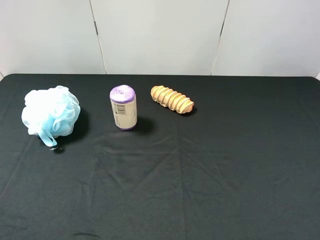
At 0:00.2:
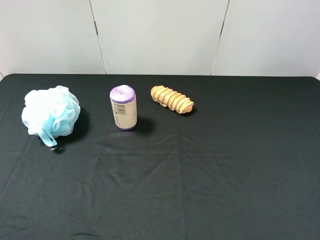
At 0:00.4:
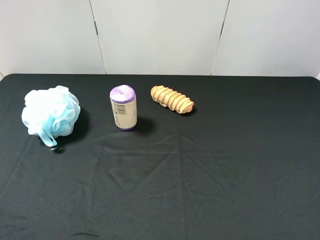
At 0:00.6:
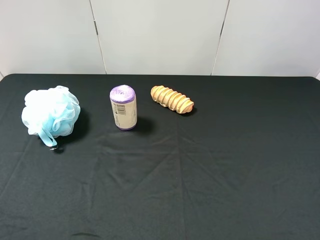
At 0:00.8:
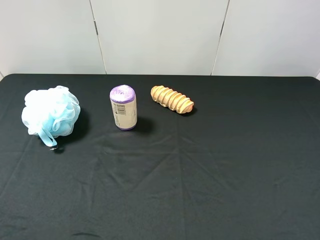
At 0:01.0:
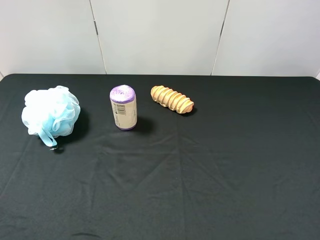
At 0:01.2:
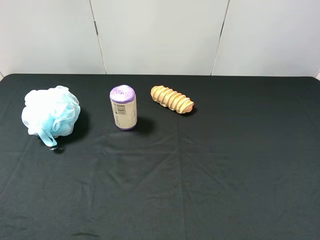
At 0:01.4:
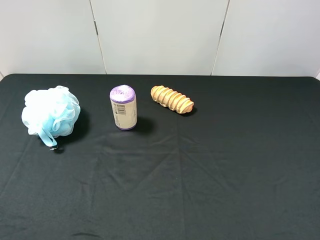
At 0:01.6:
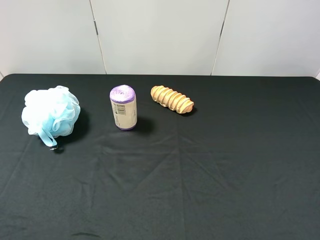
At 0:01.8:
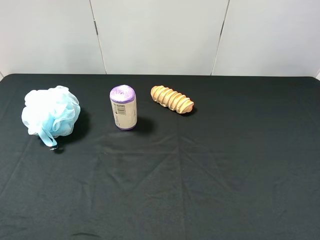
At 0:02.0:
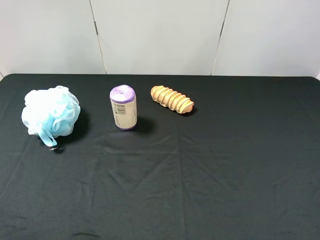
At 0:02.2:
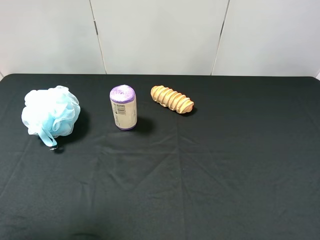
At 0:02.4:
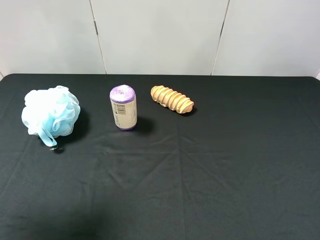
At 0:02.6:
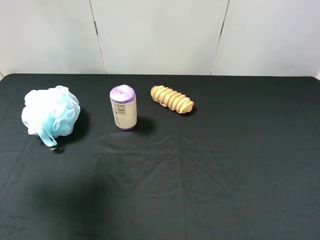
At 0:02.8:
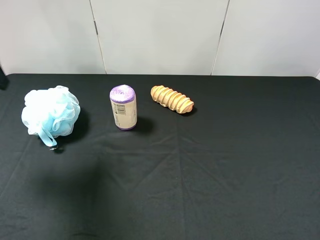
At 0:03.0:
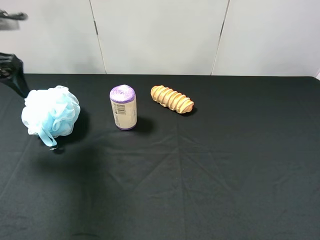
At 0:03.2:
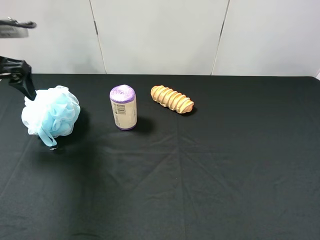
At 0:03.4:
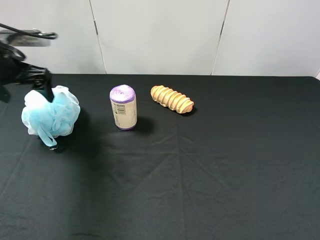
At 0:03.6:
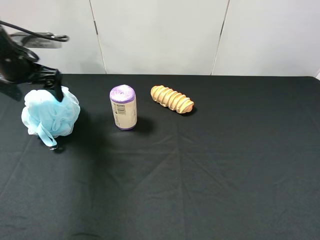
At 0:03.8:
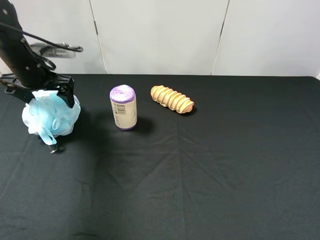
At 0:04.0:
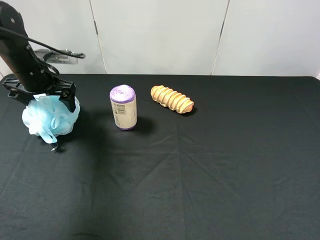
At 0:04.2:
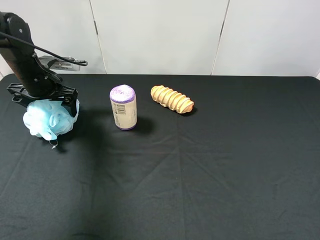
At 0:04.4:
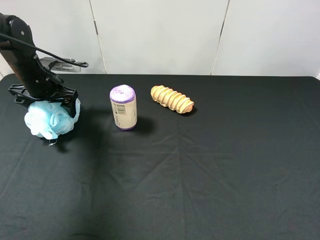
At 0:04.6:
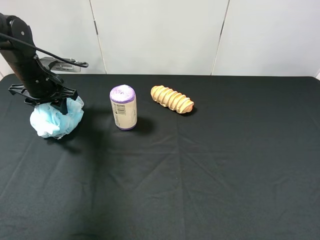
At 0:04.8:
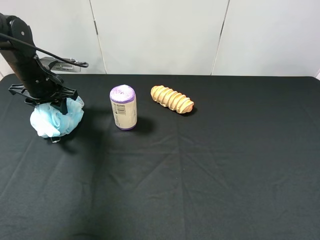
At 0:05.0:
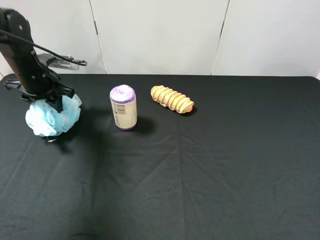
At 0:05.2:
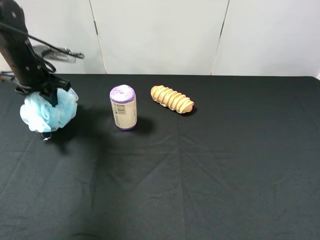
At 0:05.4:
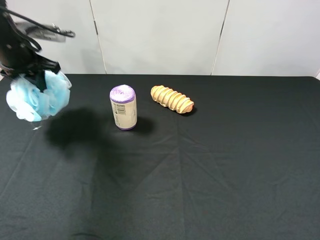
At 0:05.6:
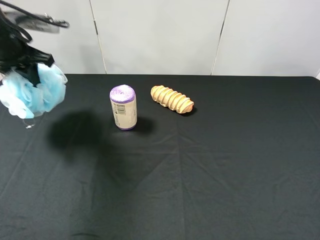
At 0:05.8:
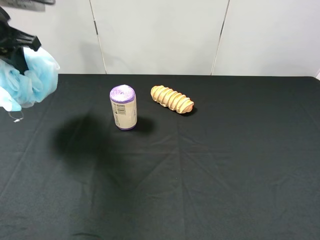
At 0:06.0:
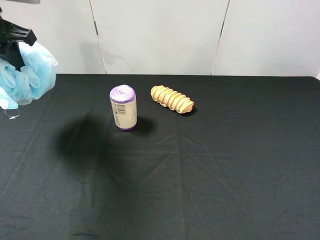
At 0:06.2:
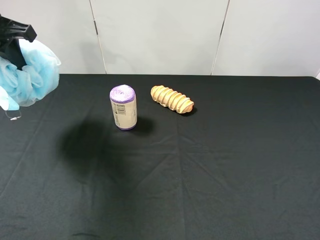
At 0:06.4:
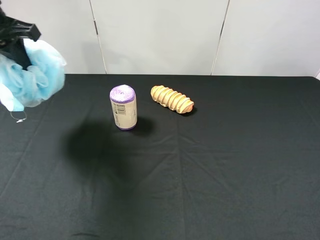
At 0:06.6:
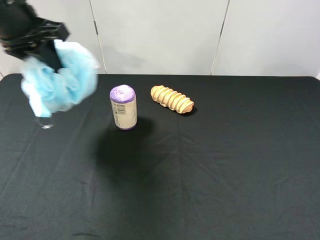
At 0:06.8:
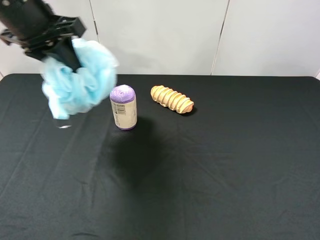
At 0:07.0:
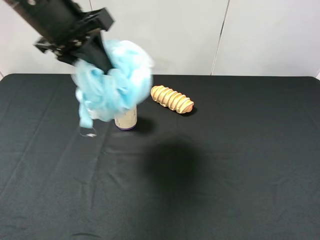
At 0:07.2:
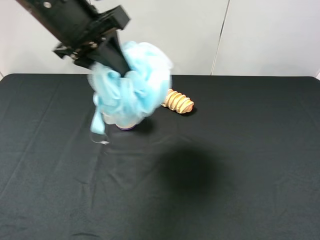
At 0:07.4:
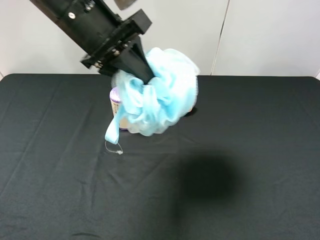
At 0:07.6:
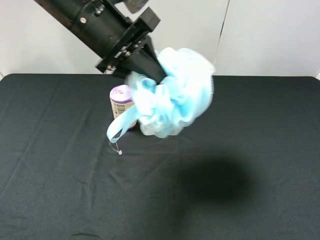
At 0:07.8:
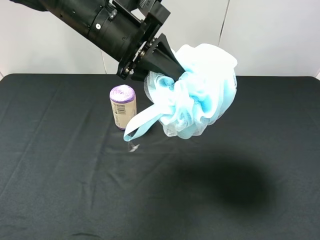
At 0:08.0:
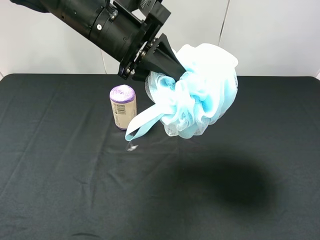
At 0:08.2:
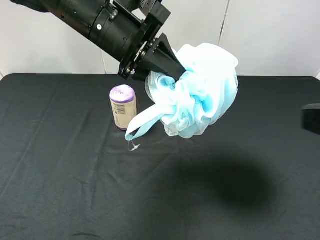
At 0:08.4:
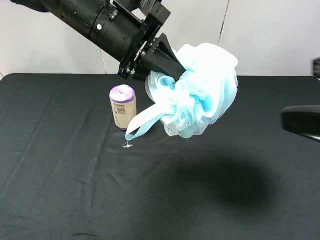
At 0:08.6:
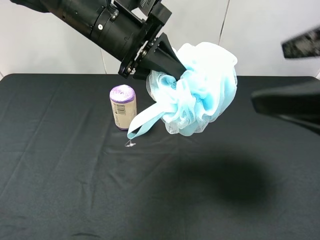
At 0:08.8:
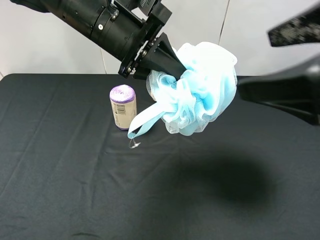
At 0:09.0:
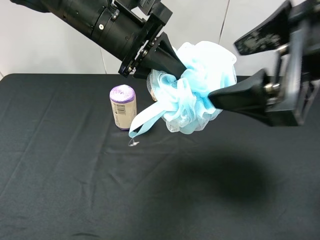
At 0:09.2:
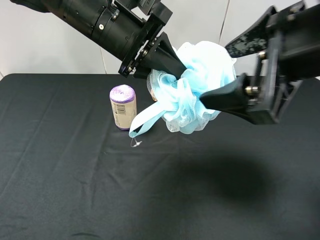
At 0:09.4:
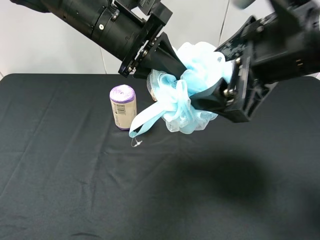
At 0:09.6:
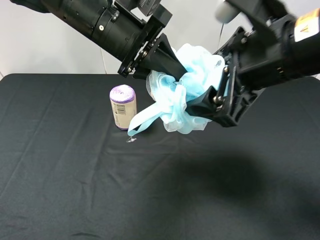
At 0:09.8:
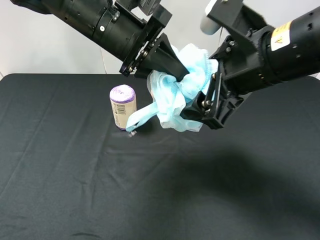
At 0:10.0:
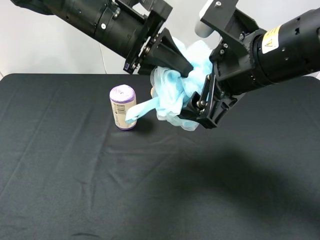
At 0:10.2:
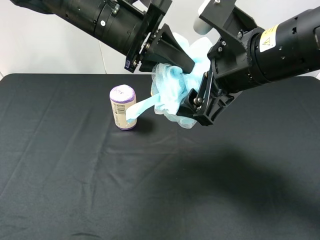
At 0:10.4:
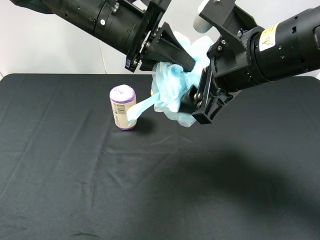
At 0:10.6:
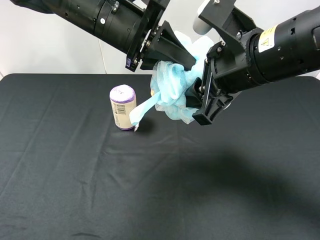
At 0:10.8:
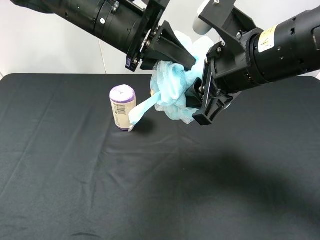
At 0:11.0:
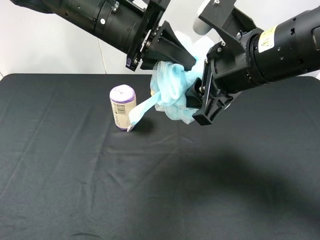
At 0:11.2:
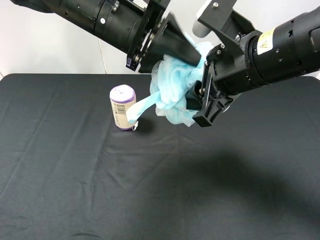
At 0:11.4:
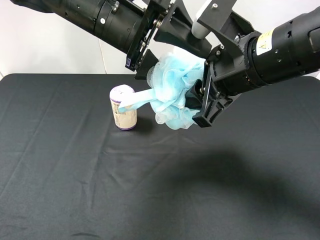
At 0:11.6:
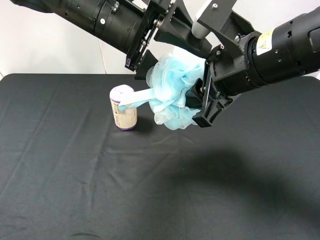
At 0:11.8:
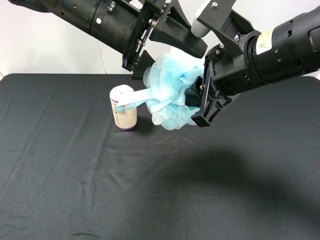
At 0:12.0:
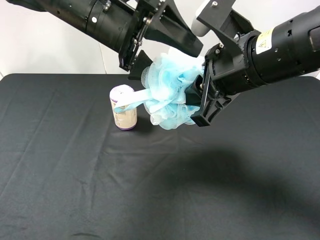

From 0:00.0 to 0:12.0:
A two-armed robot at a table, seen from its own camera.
Task of the whole recording: use the left gripper to pick up the item and transfer it from the left gripper to the right gripper.
From 0:01.6 to 0:03.0: The left gripper moves forward, some 30 cm.
From 0:03.0 to 0:04.4: The left gripper heads downward and forward, covering roughly 15 cm.
From 0:04.4 to 0:06.0: The left gripper travels upward by approximately 15 cm, and closes.
From 0:06.0 to 0:07.6: The left gripper heads to the right, covering about 20 cm.
From 0:07.6 to 0:09.0: The right gripper shifts approximately 15 cm forward and to the left.
From 0:09.0 to 0:10.4: The right gripper goes roughly 10 cm forward and downward, and closes its fingers.
From 0:10.4 to 0:12.0: The left gripper opens its fingers.

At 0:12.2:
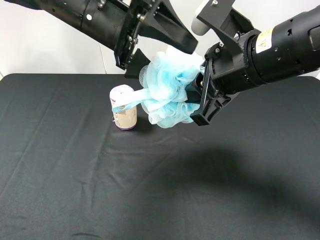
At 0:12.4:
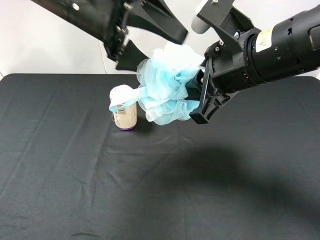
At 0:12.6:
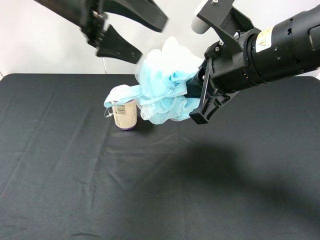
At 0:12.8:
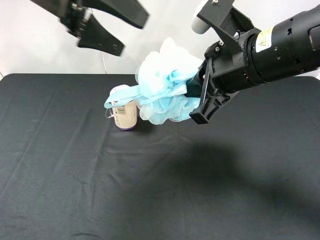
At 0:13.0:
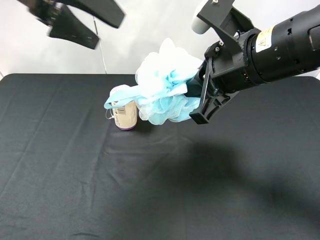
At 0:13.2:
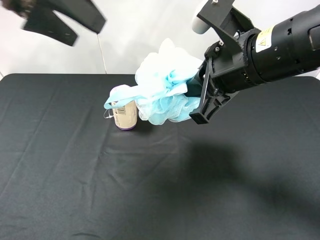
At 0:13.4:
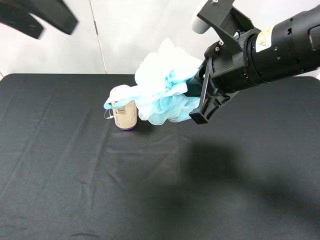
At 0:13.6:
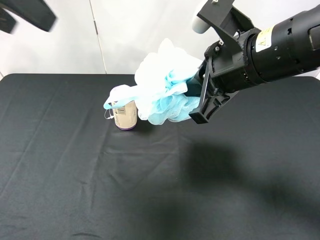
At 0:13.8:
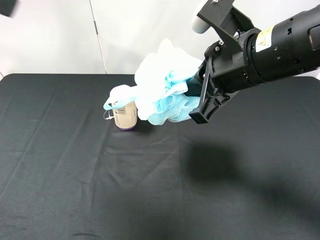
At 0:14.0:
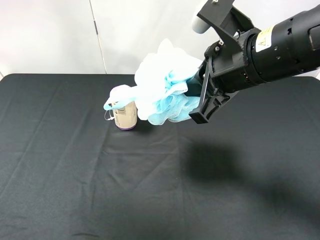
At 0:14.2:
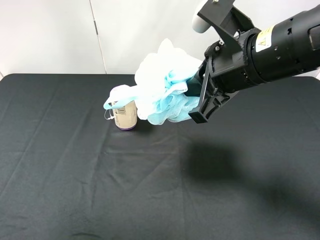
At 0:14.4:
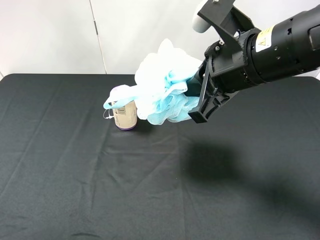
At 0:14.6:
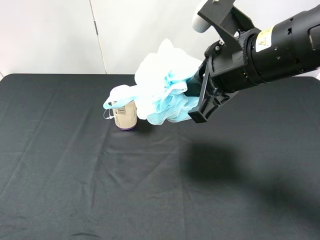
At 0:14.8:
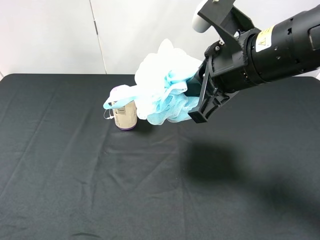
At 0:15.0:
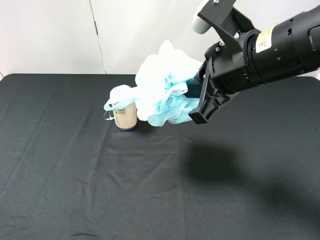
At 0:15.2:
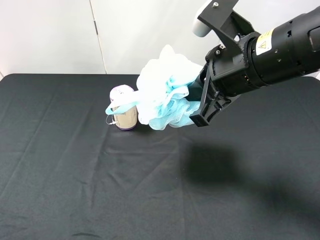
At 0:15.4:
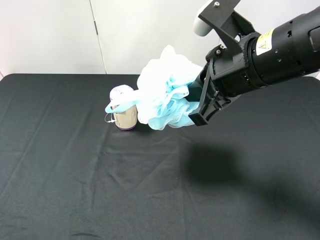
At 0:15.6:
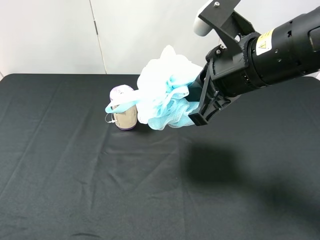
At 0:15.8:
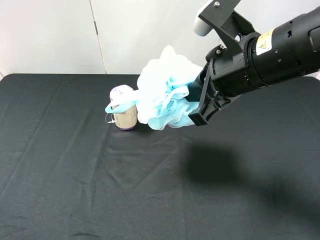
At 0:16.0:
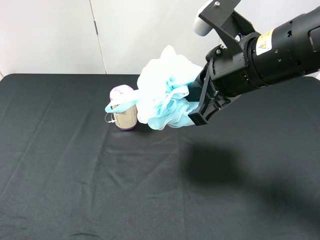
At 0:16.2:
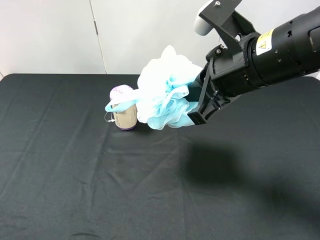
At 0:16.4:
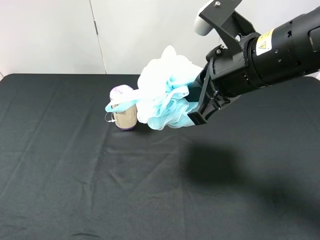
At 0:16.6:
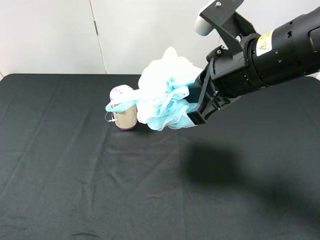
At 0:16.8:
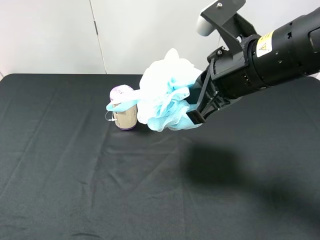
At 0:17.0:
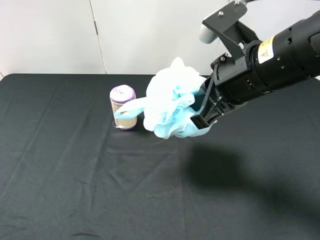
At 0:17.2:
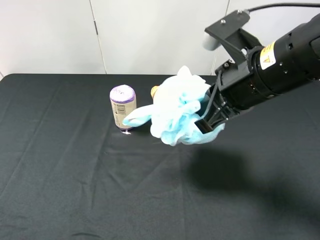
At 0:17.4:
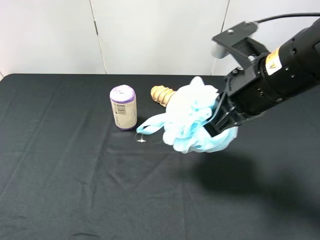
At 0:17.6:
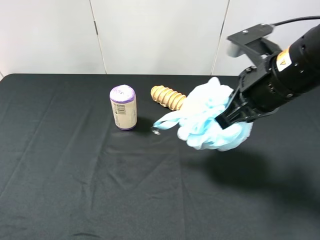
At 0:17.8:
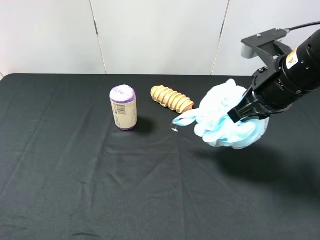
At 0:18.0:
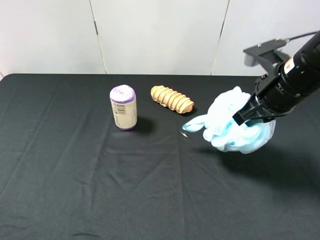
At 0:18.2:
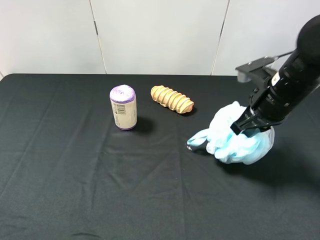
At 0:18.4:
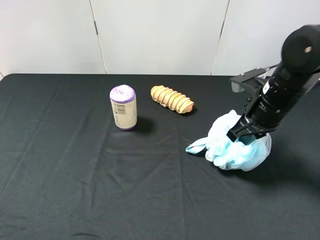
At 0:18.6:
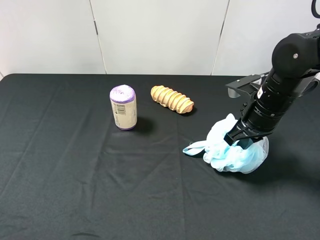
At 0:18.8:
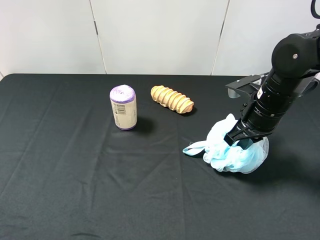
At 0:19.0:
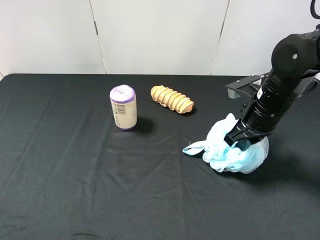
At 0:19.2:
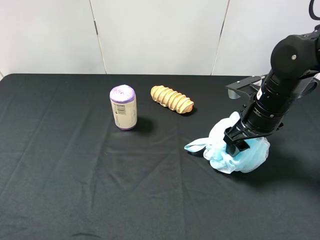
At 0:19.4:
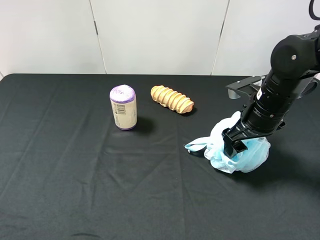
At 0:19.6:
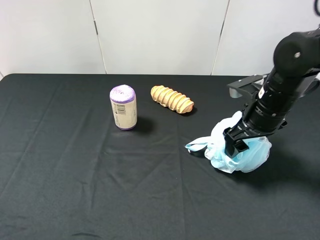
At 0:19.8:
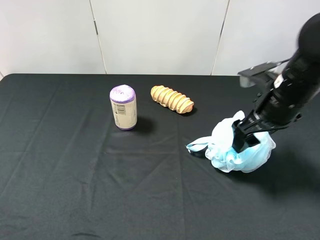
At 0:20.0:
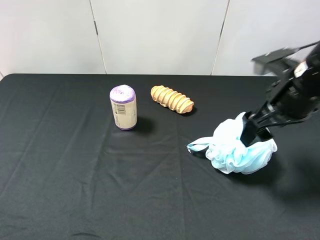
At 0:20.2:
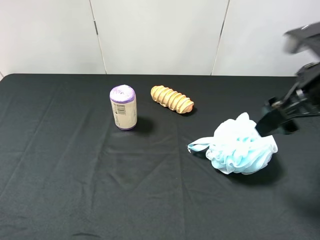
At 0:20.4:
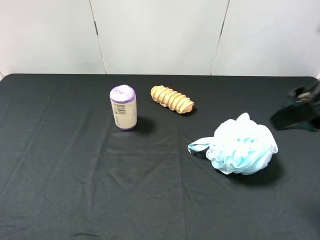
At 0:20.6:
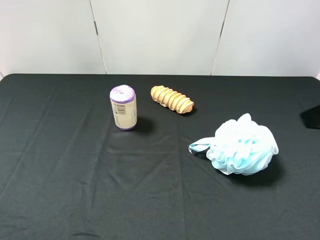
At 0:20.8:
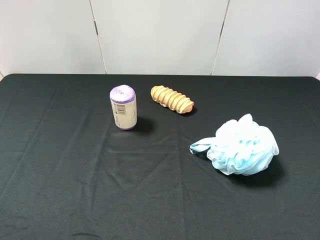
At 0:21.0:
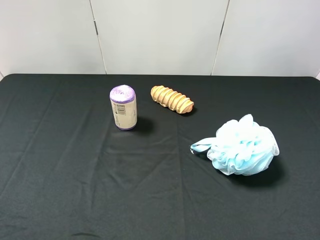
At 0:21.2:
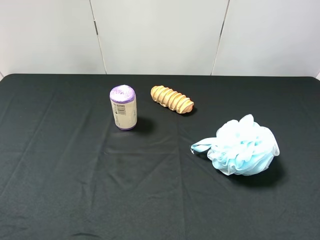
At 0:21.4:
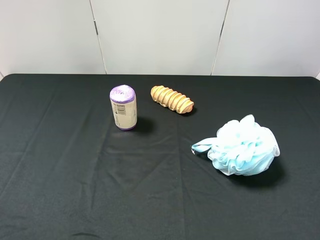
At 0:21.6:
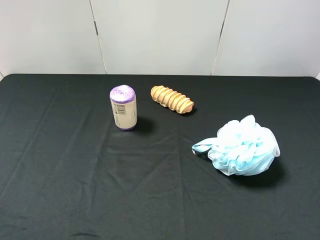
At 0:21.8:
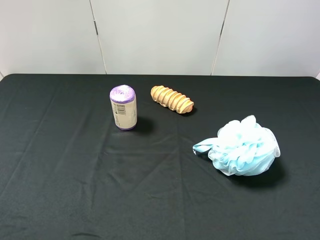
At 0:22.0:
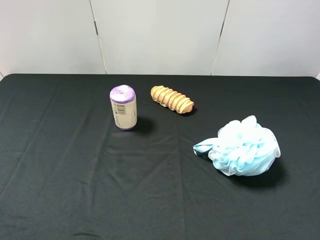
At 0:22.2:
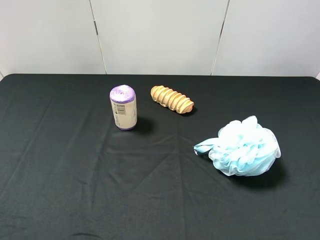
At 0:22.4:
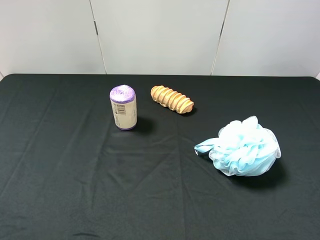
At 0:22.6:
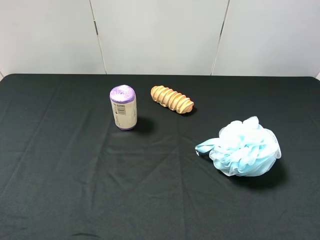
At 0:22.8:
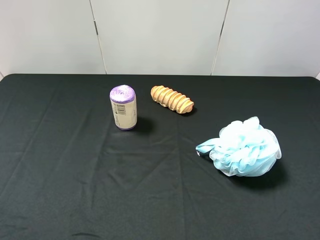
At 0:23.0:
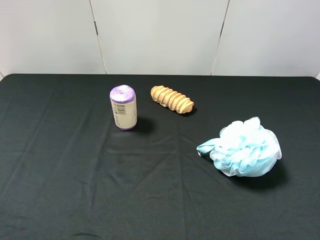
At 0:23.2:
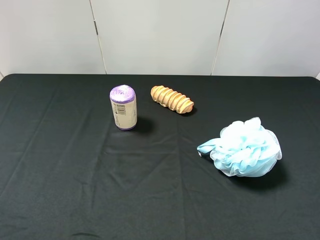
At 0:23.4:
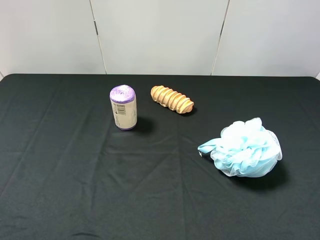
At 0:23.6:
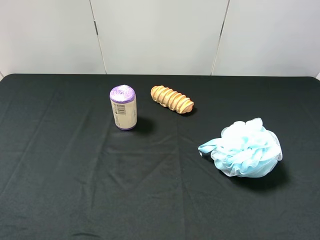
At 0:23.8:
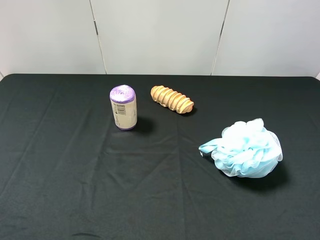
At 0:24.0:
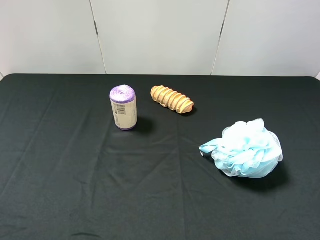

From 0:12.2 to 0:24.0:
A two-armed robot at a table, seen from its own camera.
Task of the whole recording: use the left gripper to pick up the item and transfer it from the left gripper to the right gripper.
From 0:12.2 to 0:13.6: The left gripper shifts approximately 20 cm to the left, upward and backward.
From 0:13.6 to 0:15.2: The left gripper shifts roughly 25 cm backward, downward and to the left.
From 0:15.2 to 0:16.6: There are only small adjustments of the grippers.
From 0:16.6 to 0:18.2: The right gripper goes about 15 cm downward, to the right and forward.
From 0:18.2 to 0:19.6: The right gripper opens.
From 0:19.6 to 0:21.0: The right gripper moves backward and upward, some 25 cm.
From 0:21.0 to 0:22.6: The right gripper changes place by about 5 cm.
From 0:22.6 to 0:24.0: Both grippers stay about where they are.
